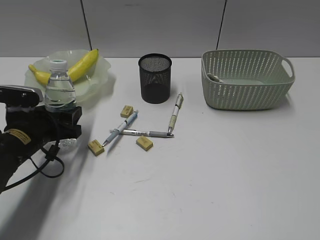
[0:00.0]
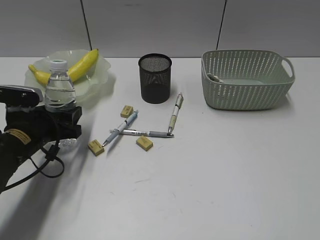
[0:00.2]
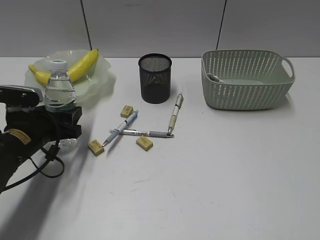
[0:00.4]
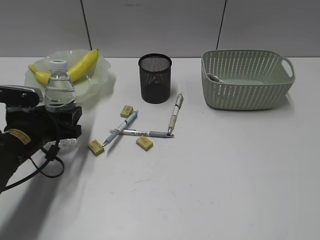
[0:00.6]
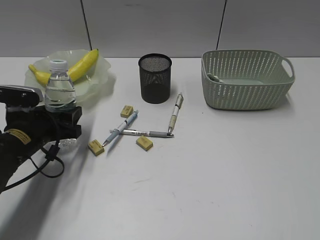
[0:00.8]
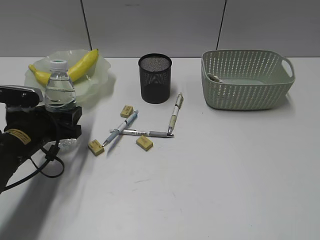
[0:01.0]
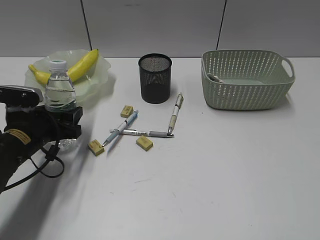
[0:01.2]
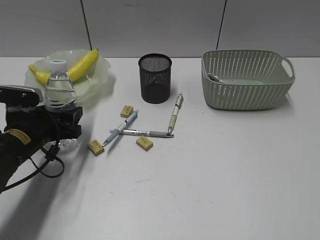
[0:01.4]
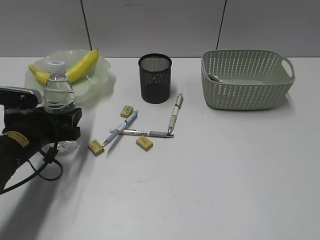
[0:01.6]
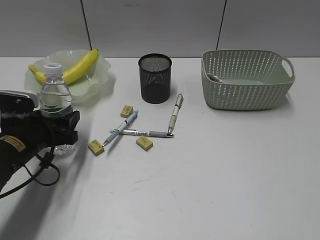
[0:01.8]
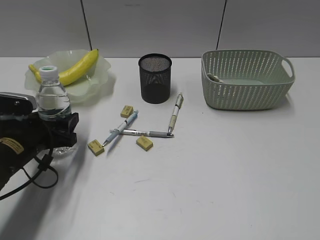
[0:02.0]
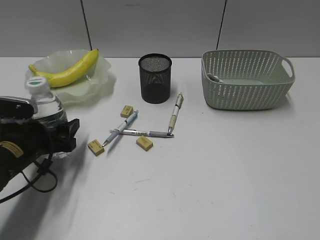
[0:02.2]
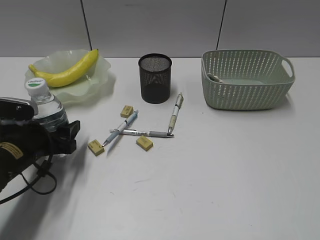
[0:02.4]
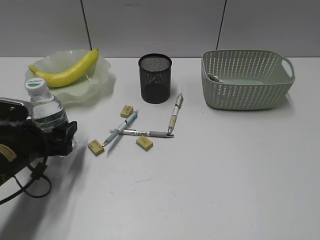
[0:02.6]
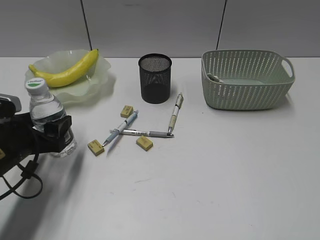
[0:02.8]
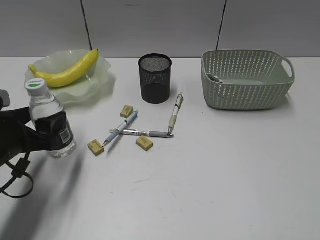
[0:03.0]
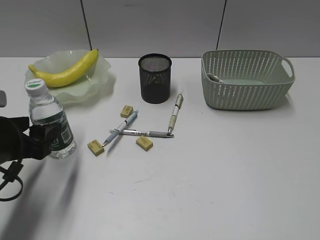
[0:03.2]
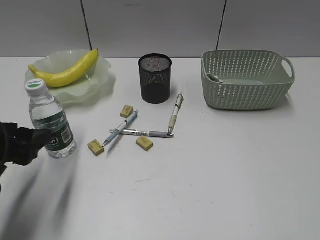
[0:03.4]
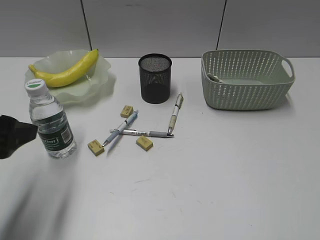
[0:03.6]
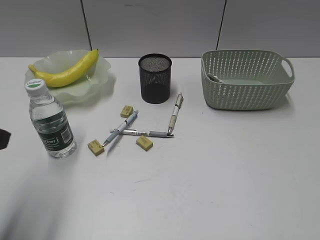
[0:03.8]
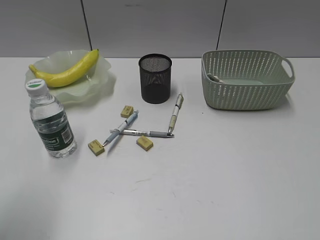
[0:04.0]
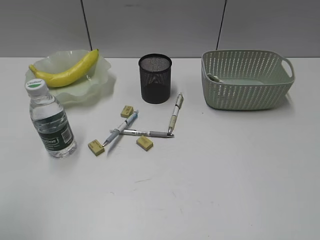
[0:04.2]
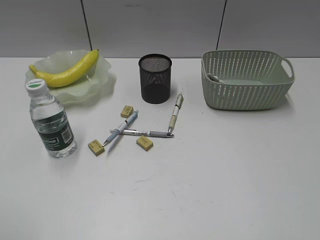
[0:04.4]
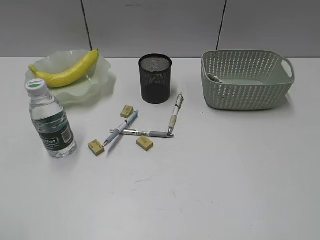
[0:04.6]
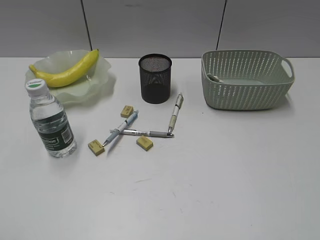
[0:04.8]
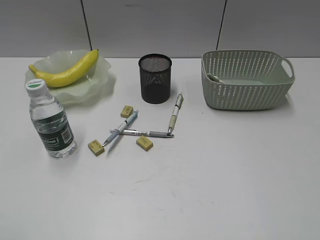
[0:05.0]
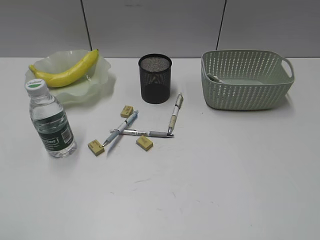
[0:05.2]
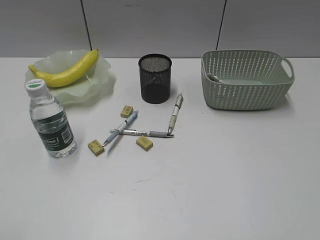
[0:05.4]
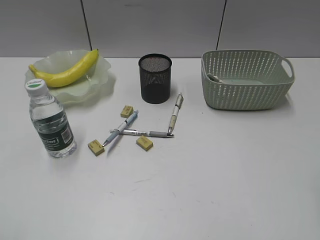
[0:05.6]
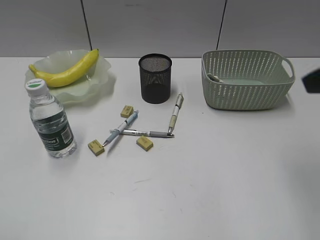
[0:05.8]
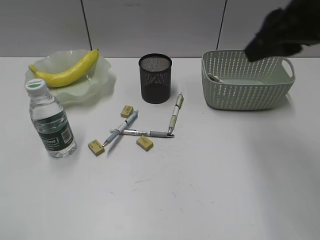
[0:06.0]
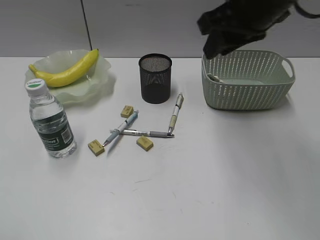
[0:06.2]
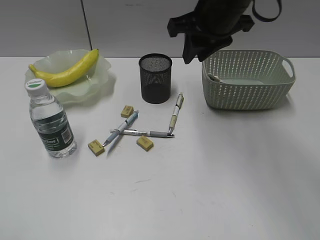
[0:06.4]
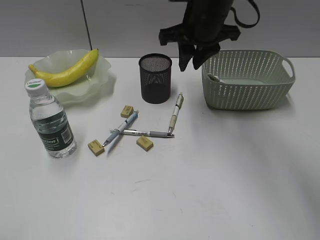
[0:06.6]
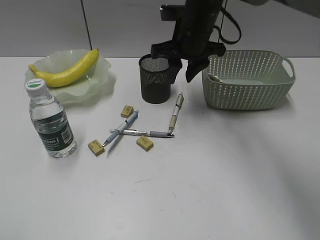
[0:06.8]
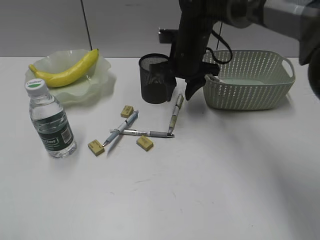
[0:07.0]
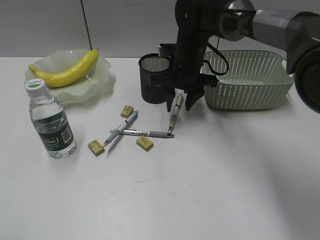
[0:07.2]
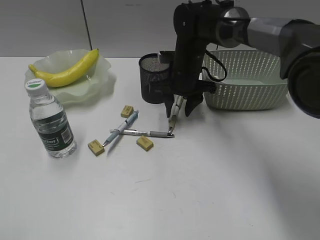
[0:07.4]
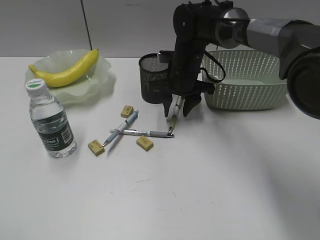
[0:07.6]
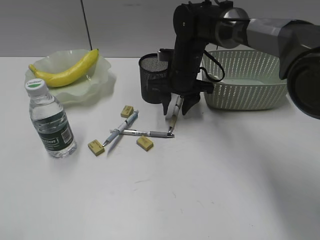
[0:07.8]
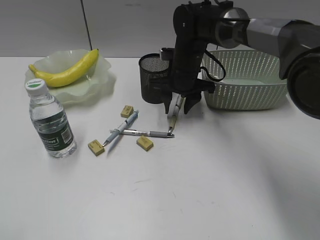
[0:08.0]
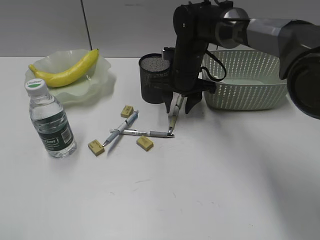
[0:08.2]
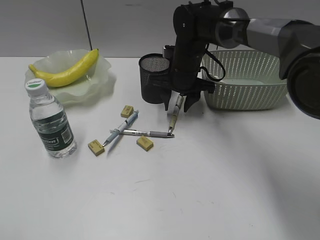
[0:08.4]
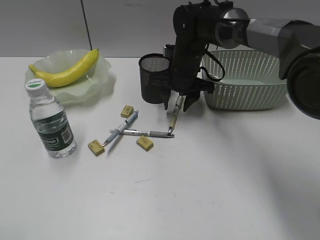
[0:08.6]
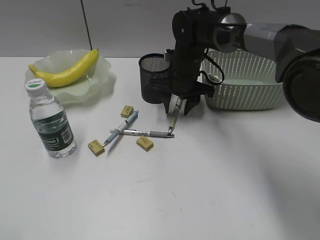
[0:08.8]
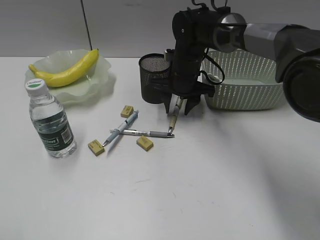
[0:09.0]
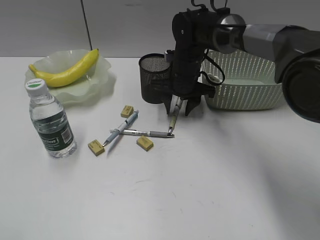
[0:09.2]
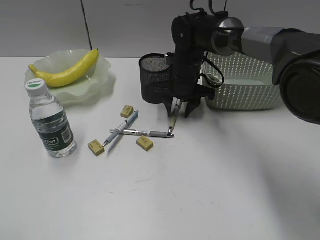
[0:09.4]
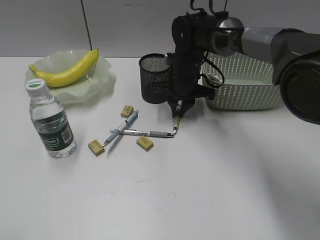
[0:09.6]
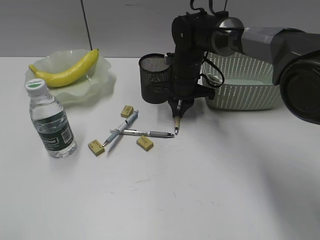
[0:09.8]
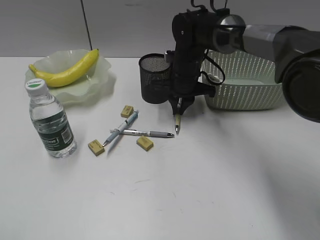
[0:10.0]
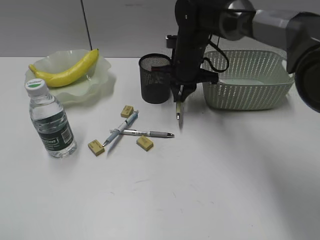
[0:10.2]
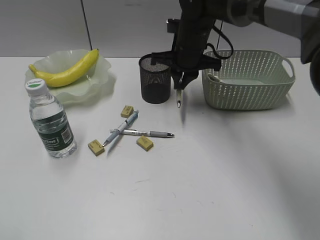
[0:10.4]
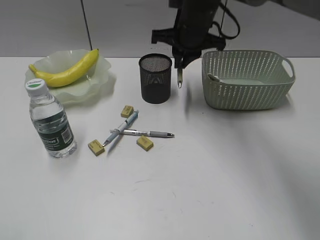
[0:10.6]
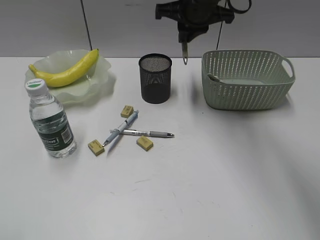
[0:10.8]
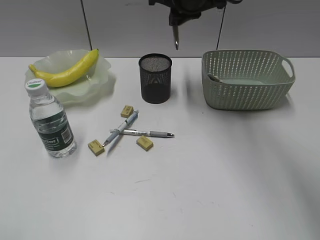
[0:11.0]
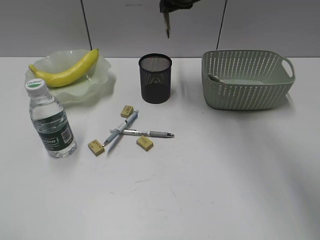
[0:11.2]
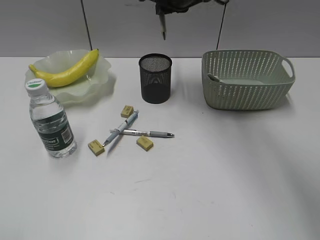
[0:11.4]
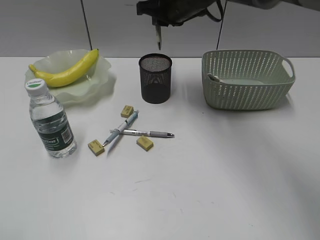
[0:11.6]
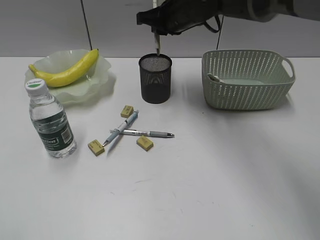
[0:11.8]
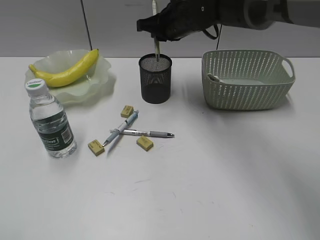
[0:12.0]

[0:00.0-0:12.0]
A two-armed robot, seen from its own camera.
Step, 0:00.0 to 0:03.2: Stand the bottle with left gripper.
Step, 0:03.4 to 0:09.8: Grasp the yellow pen with right gripper.
0:00.0 to 0:01.6: Both grippers stay about where they are.
0:01.6 to 0:03.0: The left gripper moves backward, roughly 5 cm.
0:03.0 to 0:04.4: The left gripper is displaced backward and upward by roughly 25 cm.
0:04.4 to 0:06.0: The right gripper goes about 30 cm forward and to the left.
0:06.0 to 0:07.6: The right gripper is displaced downward, forward and to the left by some 30 cm.
0:07.6 to 0:09.0: There are only small adjustments of the grippers.
0:09.0 to 0:10.4: The right gripper heads upward, covering some 5 cm, and closes its fingers.

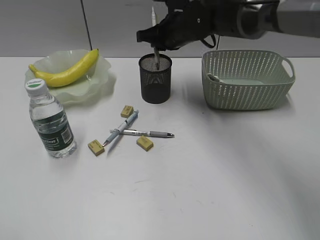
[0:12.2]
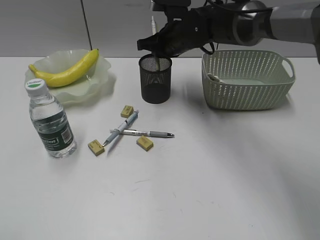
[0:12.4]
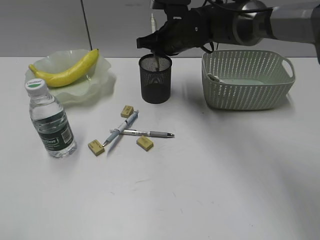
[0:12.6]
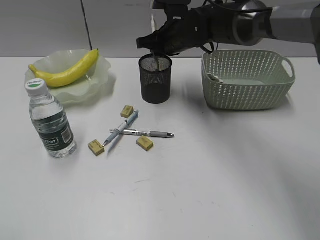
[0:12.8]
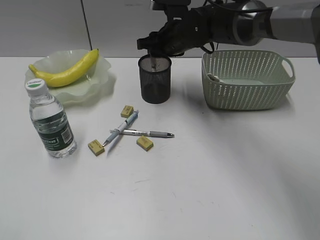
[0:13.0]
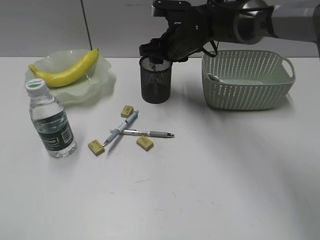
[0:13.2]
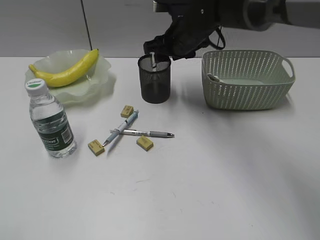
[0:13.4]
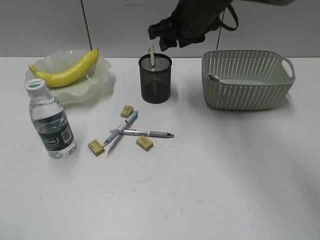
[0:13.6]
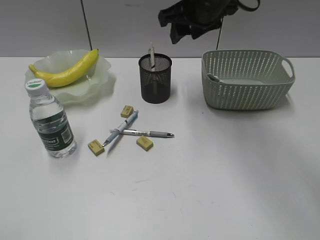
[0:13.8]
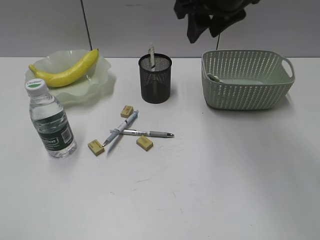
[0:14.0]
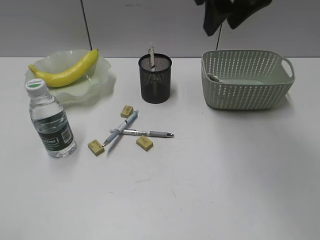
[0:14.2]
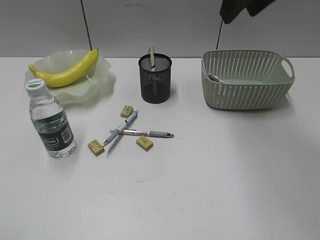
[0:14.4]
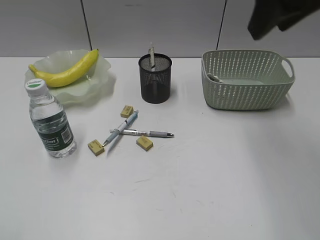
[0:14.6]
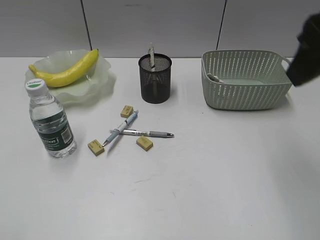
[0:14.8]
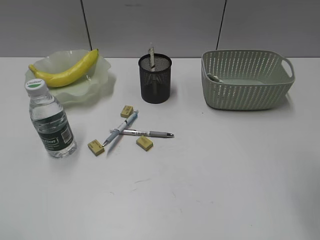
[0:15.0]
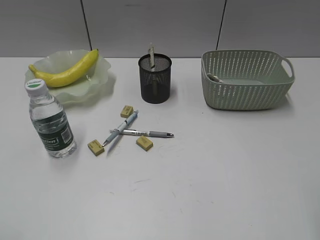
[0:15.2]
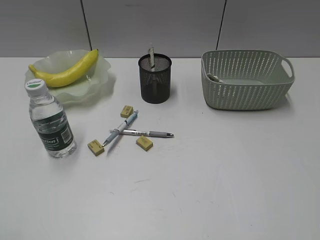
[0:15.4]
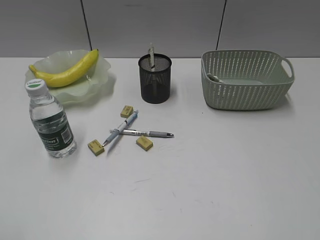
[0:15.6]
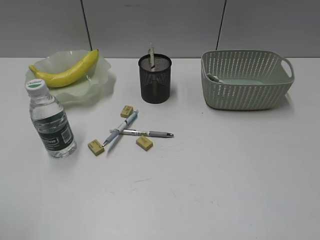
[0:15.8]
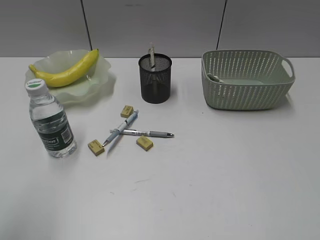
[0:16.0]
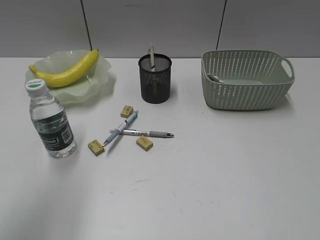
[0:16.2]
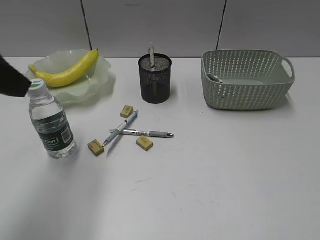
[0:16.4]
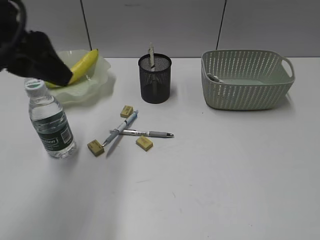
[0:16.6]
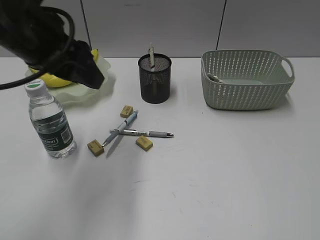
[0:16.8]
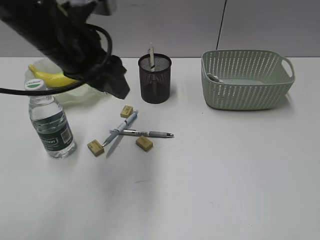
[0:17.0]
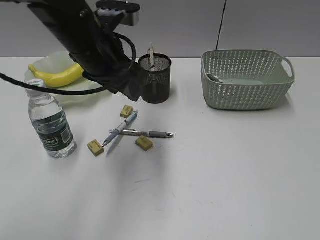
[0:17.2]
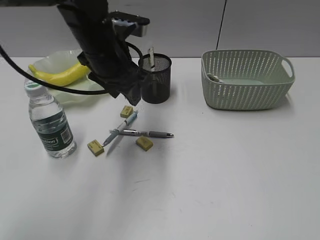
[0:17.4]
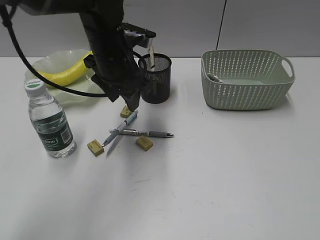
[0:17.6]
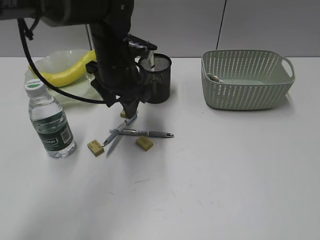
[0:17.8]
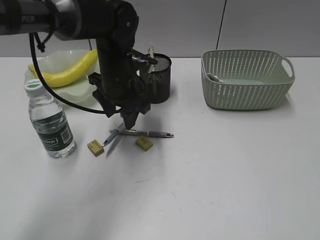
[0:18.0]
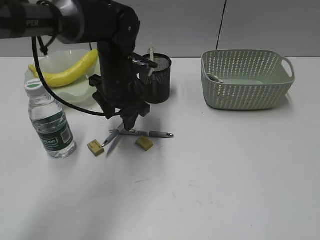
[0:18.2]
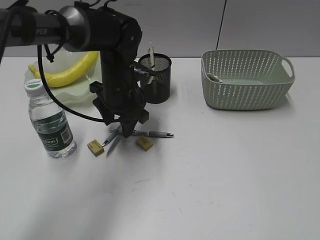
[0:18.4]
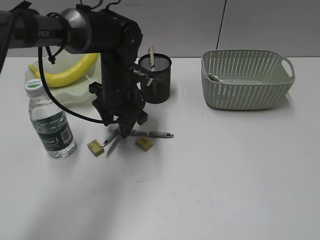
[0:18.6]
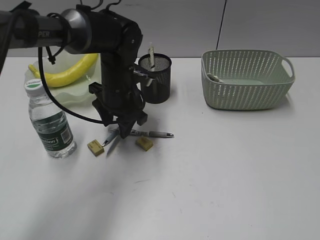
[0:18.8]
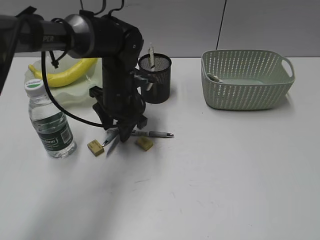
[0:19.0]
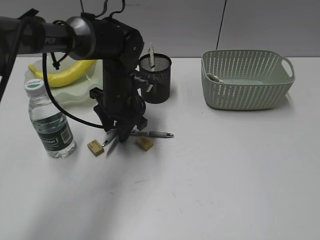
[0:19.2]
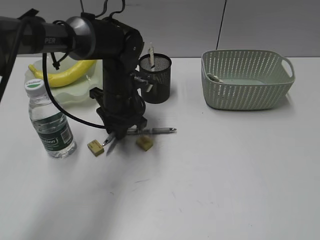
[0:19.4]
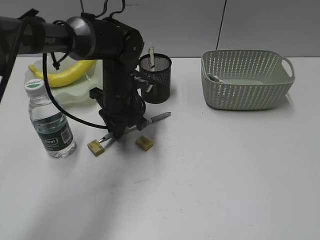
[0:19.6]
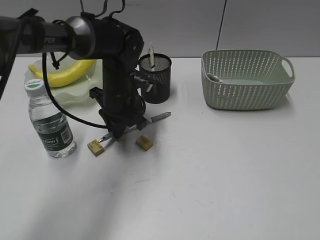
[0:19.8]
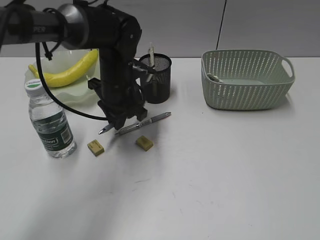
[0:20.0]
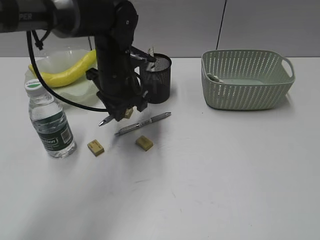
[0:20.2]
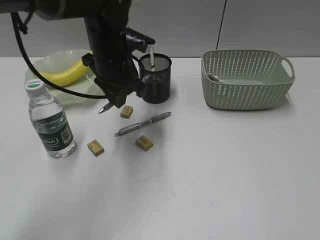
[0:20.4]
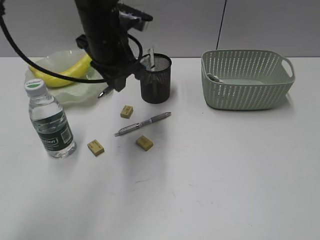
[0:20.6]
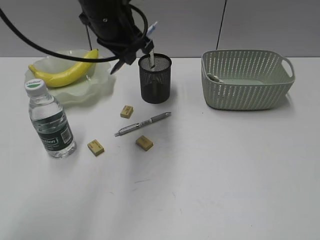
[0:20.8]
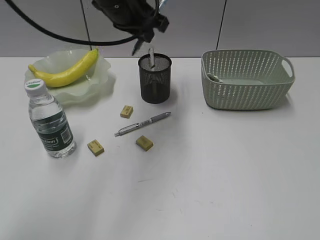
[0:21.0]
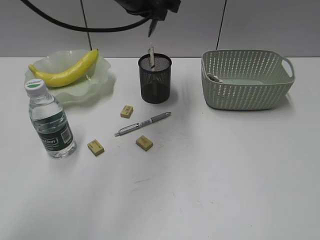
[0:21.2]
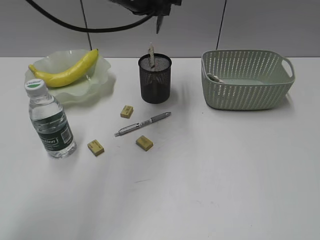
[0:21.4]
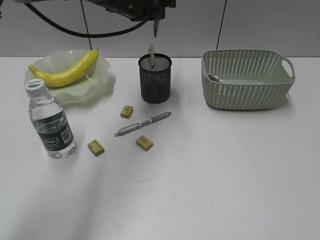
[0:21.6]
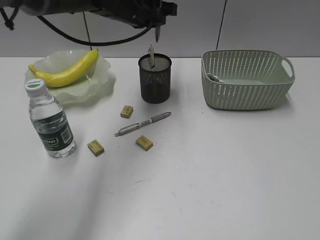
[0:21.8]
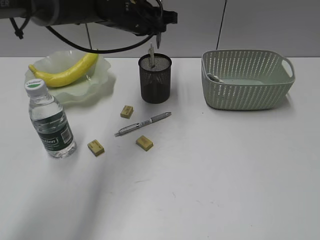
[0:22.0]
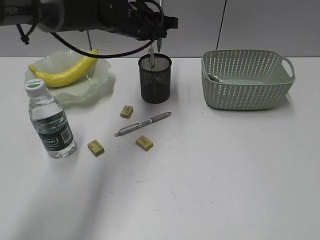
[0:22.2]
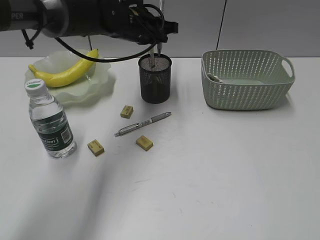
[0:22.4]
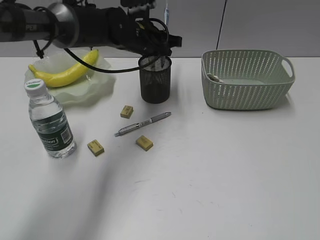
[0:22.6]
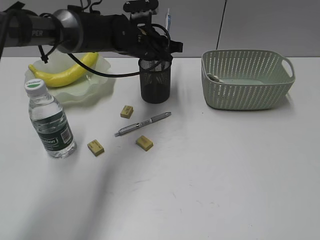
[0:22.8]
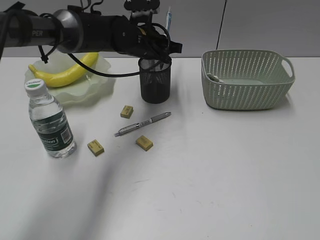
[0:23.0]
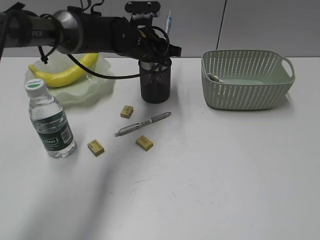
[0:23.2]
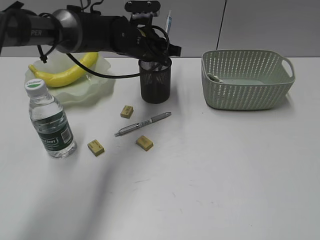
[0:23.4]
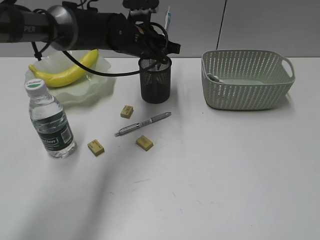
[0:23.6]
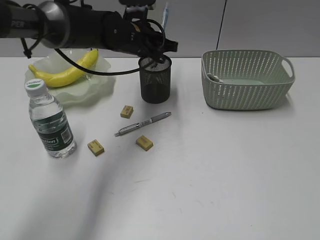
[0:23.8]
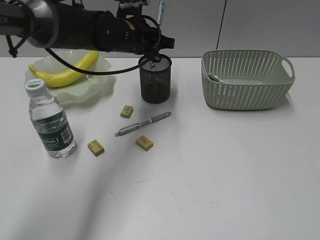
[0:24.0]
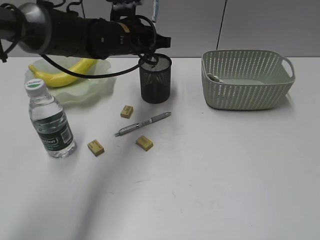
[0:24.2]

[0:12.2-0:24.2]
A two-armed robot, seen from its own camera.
Step, 0:13.6 to 0:19.6: Grasp the blue pen with left gripper.
0:12.2 to 0:13.8: The right gripper heads upward and backward, covering approximately 10 cm, and opens up.
0:13.8 to 0:15.2: The right gripper travels backward and to the right by roughly 35 cm.
0:15.2 to 0:16.6: The right gripper heads backward and to the right, covering about 15 cm, while the left gripper is displaced forward and to the right by roughly 25 cm.
0:16.6 to 0:18.2: The left gripper shifts some 25 cm downward, forward and to the right.
0:18.2 to 0:19.8: The left gripper closes its fingers.
0:19.8 to 0:21.2: The left gripper shifts some 20 cm upward.
0:21.2 to 0:22.6: The left gripper moves downward and forward, approximately 15 cm.
0:22.6 to 0:24.2: The grippers move only a little.
